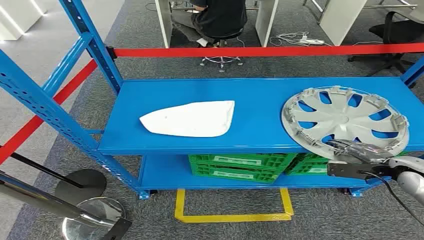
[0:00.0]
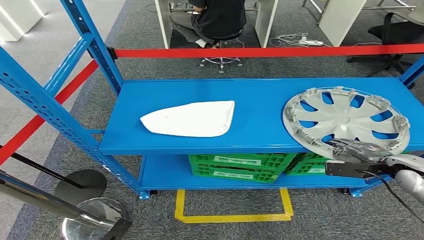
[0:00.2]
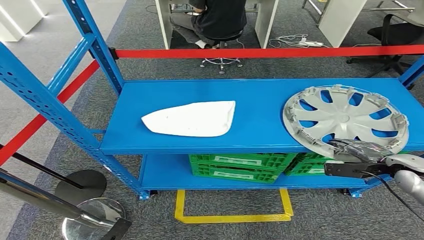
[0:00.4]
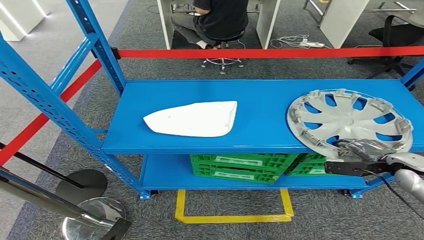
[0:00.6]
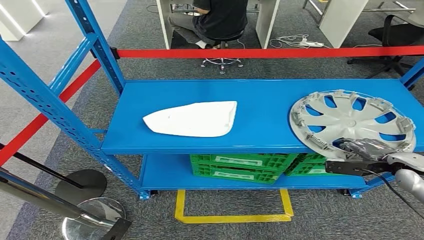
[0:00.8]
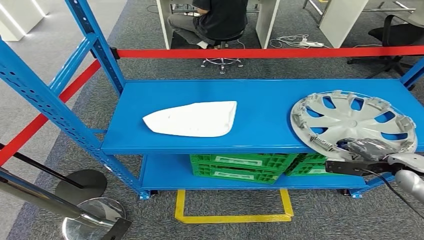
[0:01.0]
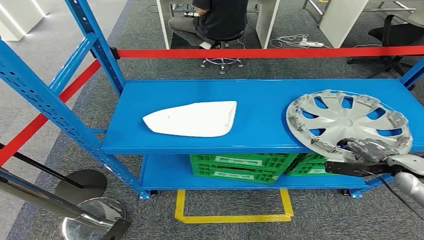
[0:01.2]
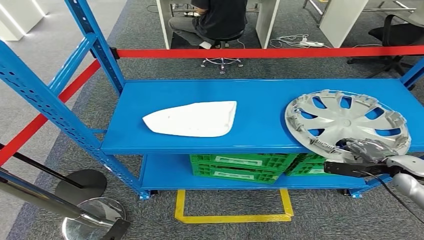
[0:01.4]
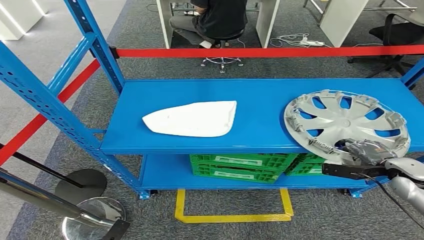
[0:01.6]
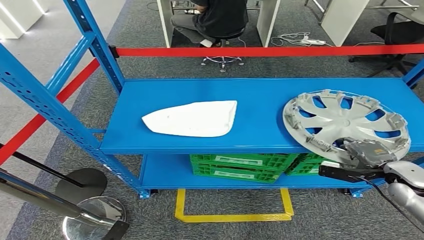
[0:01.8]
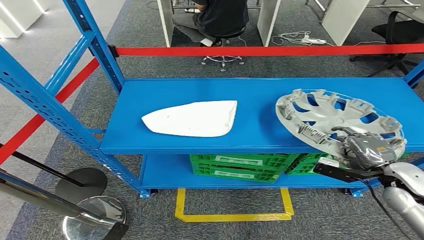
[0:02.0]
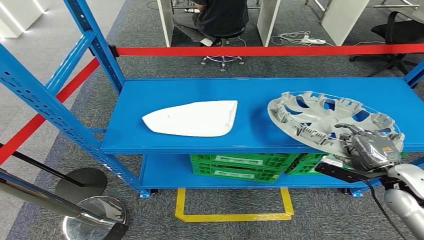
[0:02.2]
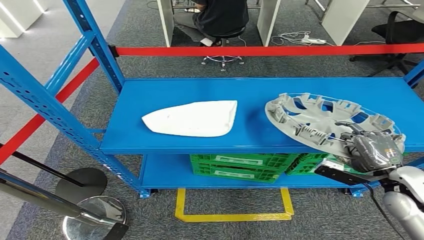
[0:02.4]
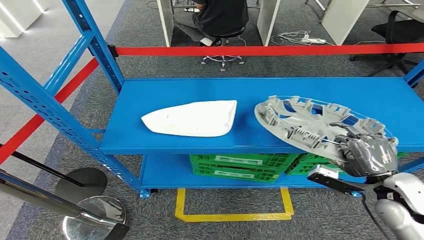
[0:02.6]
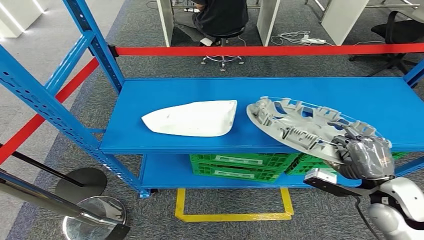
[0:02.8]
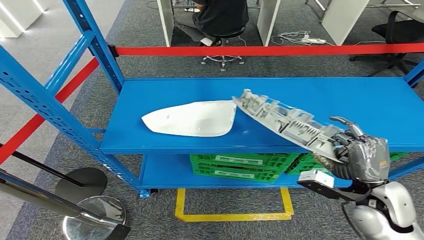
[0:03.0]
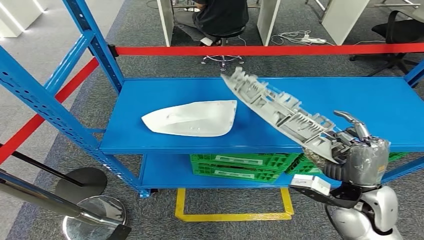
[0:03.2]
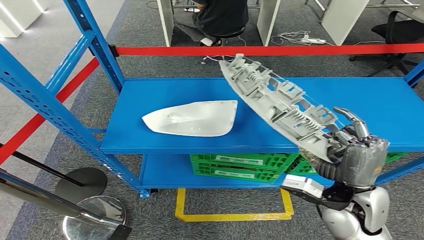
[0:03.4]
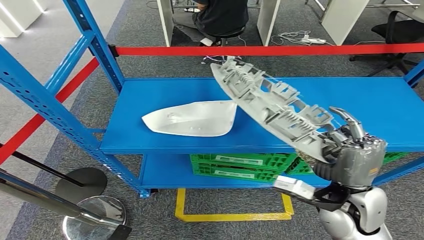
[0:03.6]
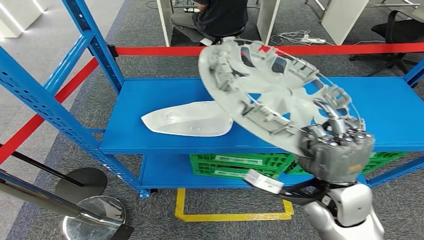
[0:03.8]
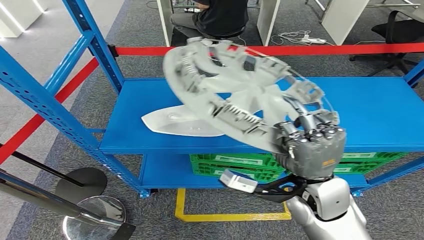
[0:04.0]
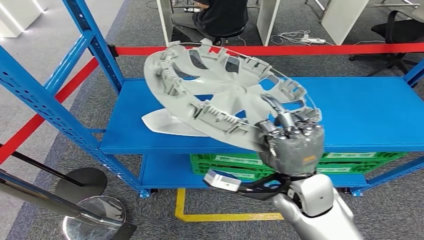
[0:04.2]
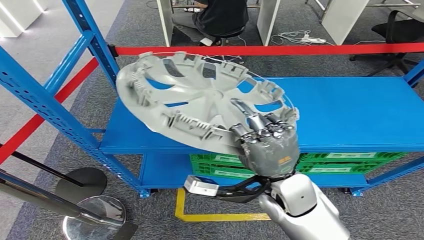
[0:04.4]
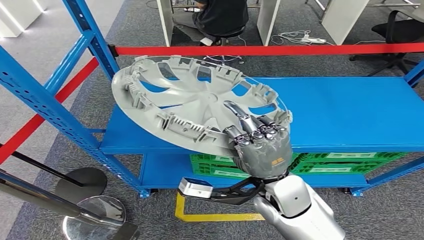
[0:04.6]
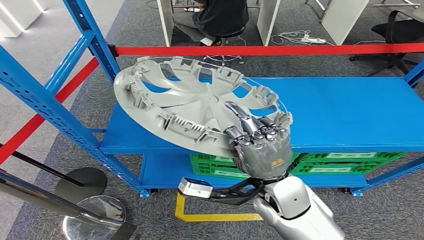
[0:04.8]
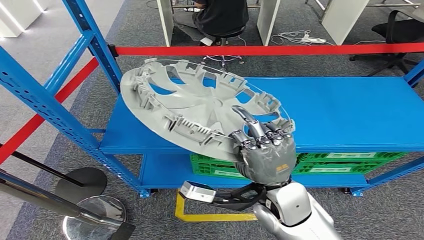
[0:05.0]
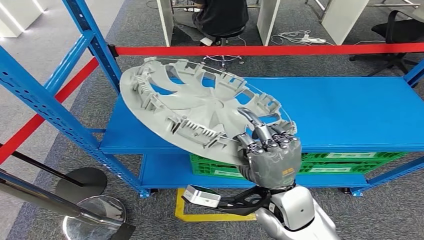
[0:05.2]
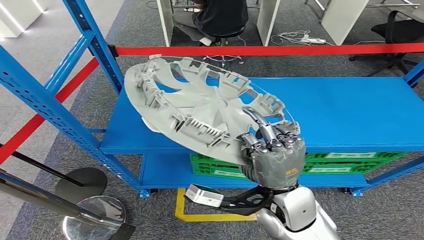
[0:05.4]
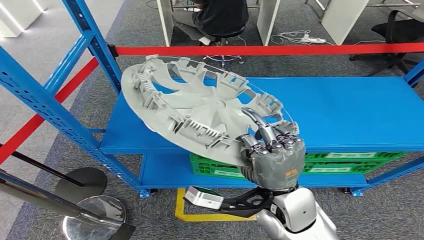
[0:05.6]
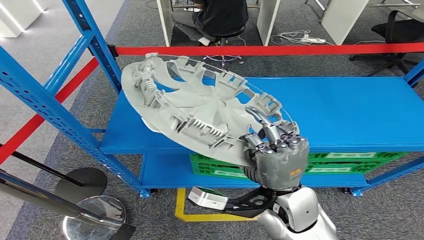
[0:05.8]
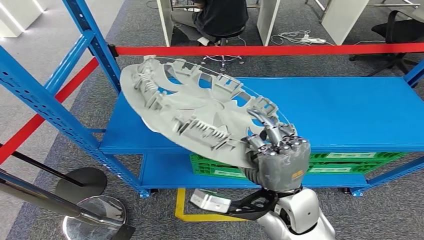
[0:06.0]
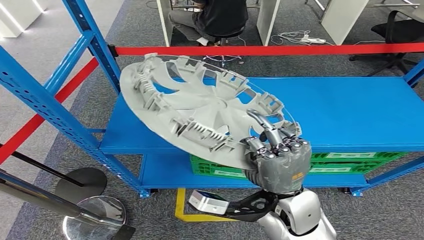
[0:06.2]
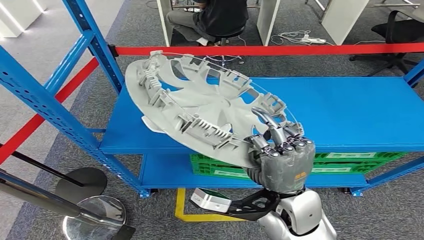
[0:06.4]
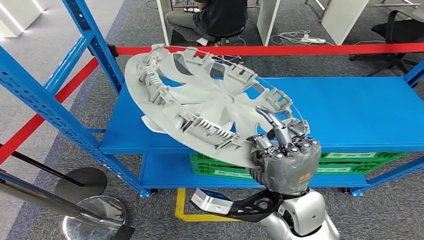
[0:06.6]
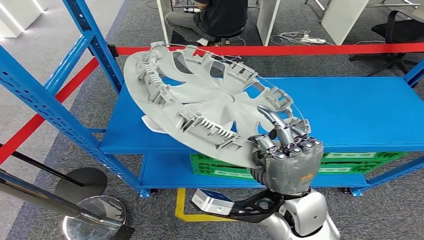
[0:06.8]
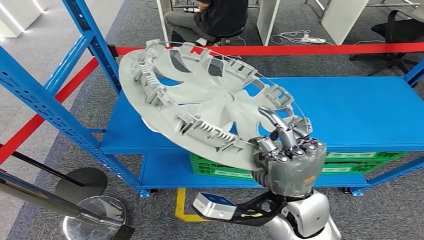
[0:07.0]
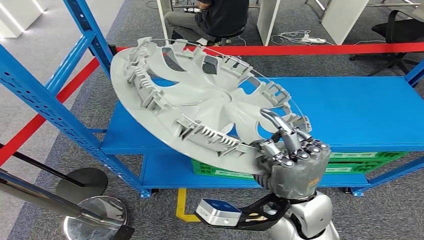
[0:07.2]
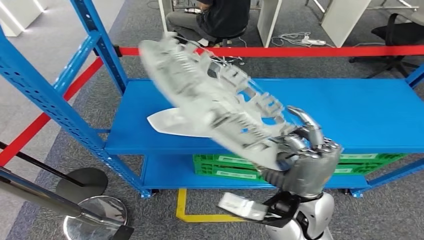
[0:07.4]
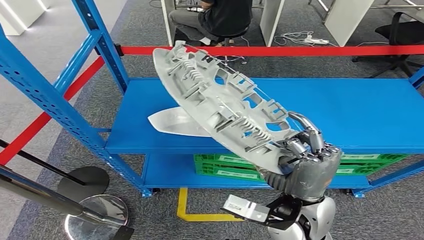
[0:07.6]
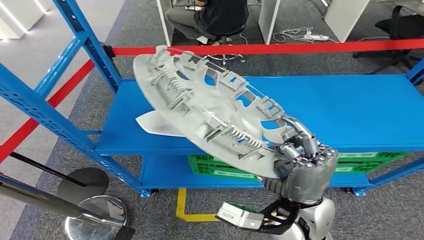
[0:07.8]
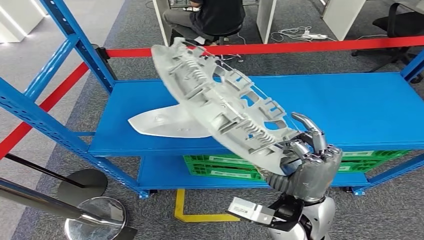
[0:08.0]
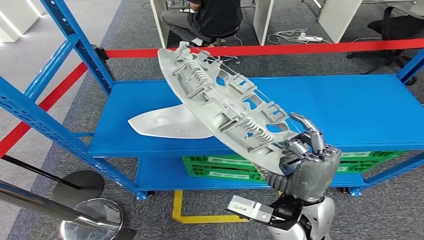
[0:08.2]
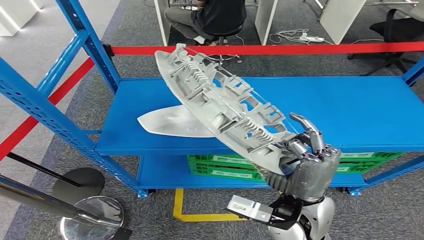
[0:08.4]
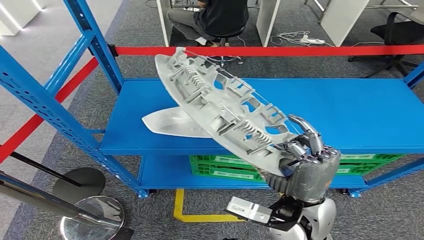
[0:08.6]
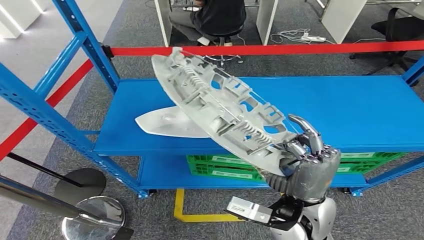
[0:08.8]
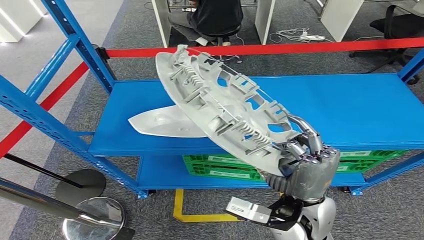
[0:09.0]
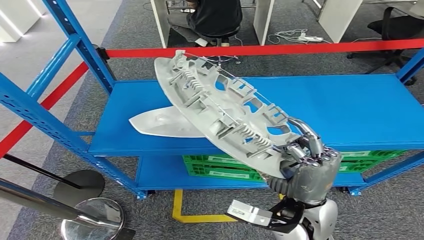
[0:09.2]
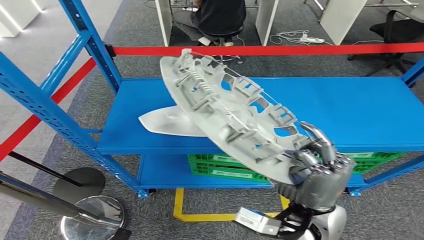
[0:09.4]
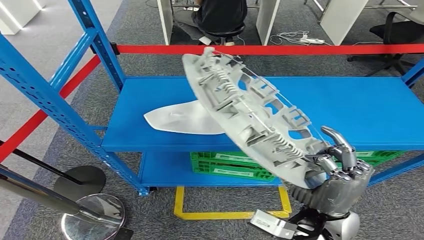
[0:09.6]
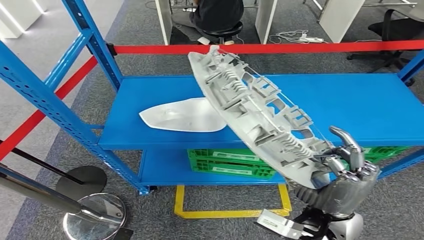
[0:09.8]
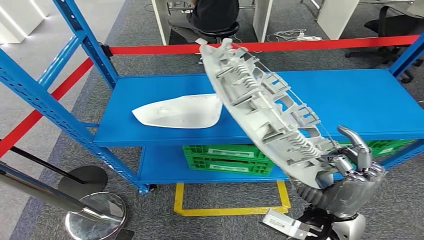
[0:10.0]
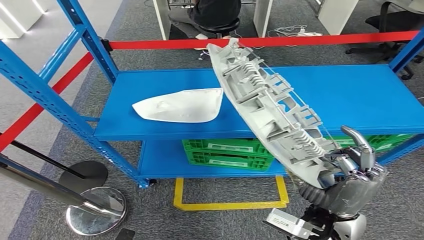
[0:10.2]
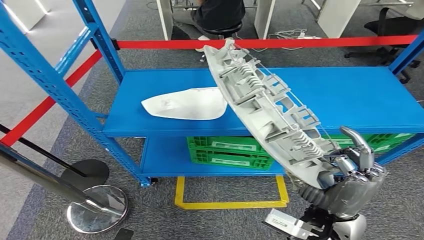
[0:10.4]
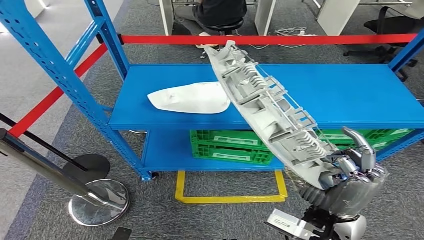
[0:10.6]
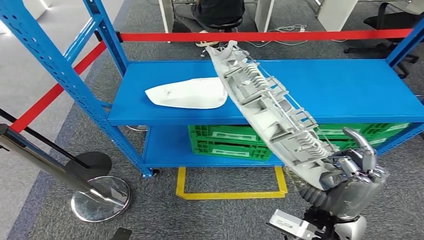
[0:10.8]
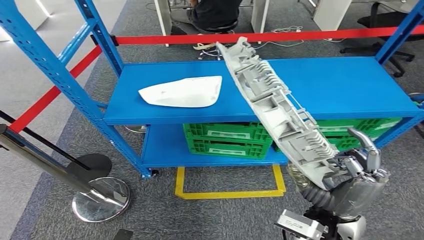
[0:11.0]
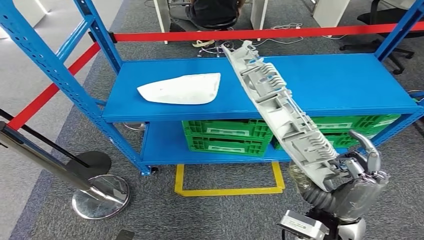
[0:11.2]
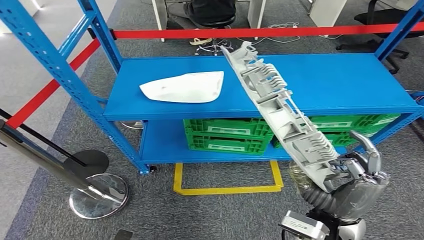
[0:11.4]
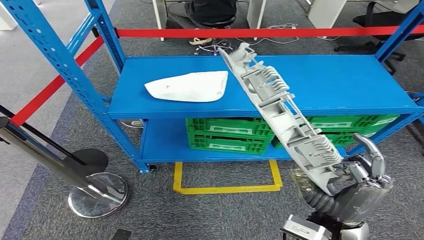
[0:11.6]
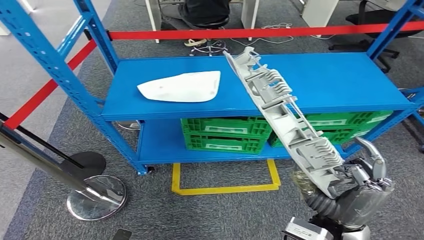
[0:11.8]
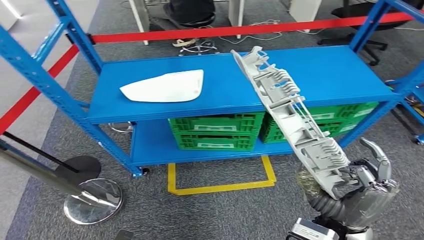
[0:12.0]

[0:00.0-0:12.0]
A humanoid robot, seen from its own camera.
Step, 0:00.0 to 0:04.0: Pick up the small component from the shelf.
0:04.4 to 0:06.0: There are only small adjustments of the hands.

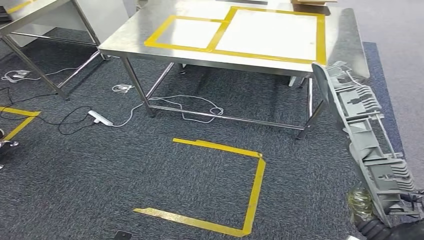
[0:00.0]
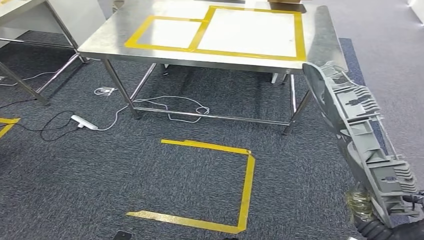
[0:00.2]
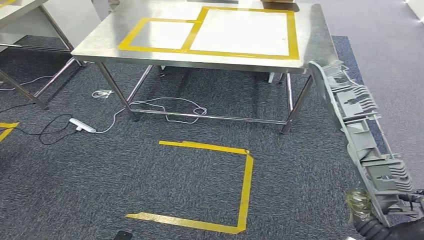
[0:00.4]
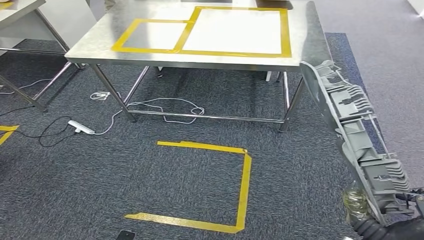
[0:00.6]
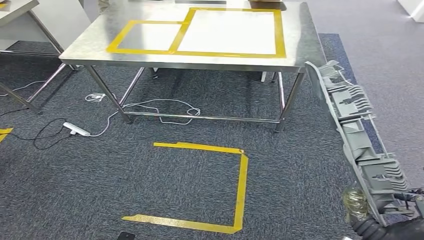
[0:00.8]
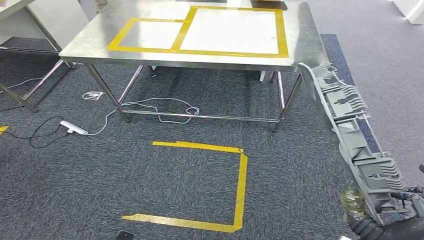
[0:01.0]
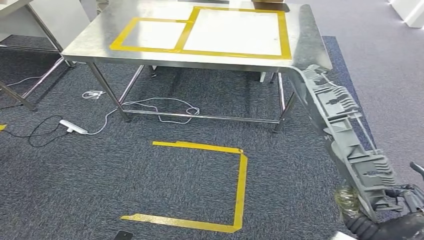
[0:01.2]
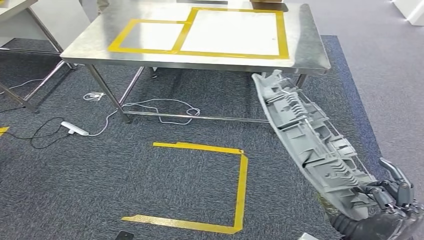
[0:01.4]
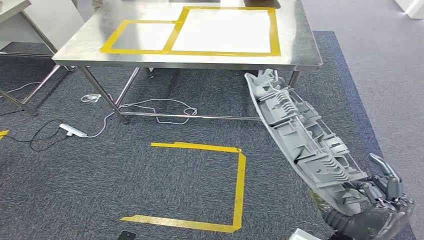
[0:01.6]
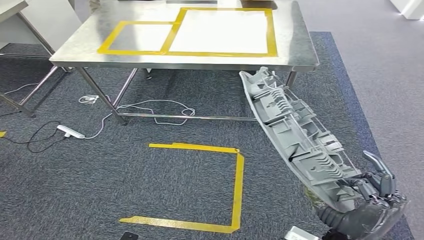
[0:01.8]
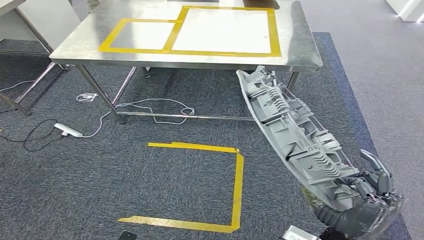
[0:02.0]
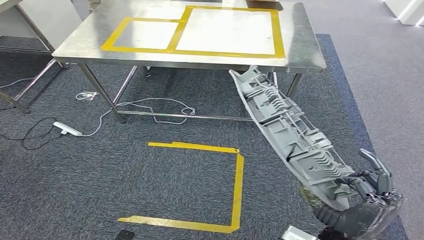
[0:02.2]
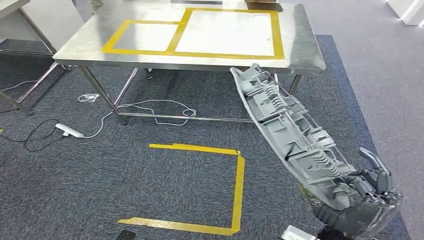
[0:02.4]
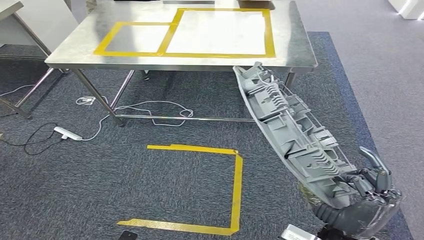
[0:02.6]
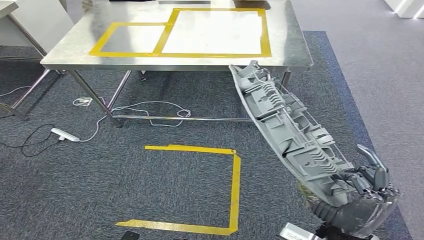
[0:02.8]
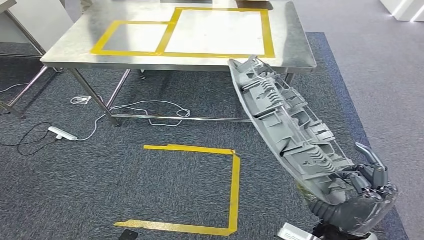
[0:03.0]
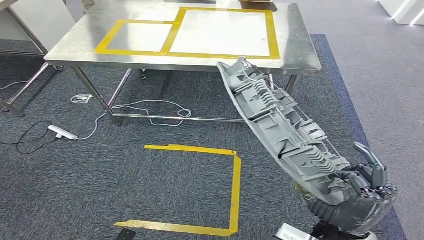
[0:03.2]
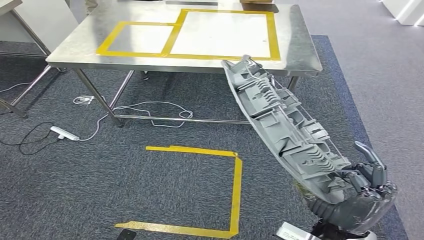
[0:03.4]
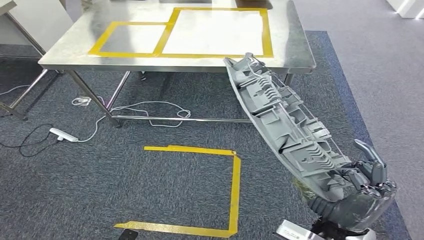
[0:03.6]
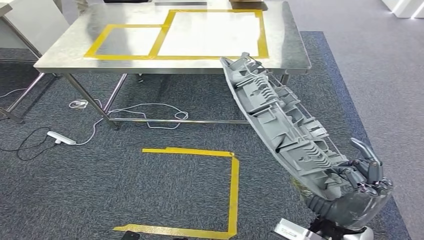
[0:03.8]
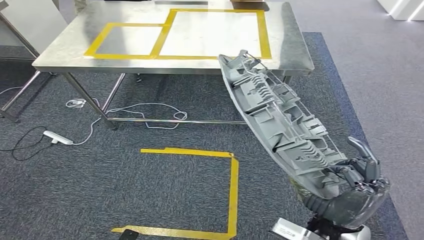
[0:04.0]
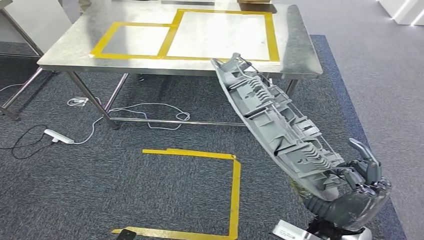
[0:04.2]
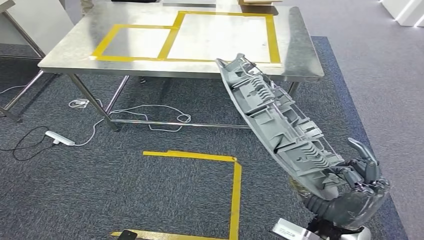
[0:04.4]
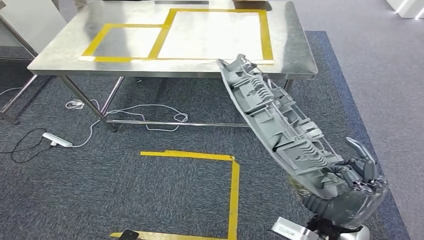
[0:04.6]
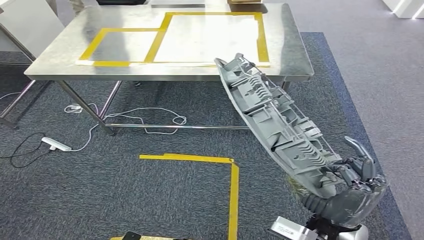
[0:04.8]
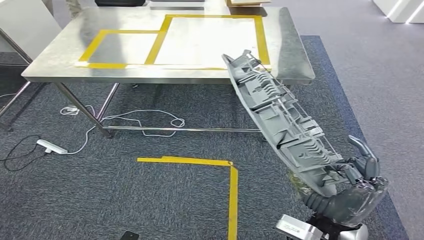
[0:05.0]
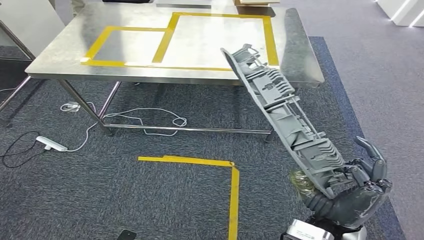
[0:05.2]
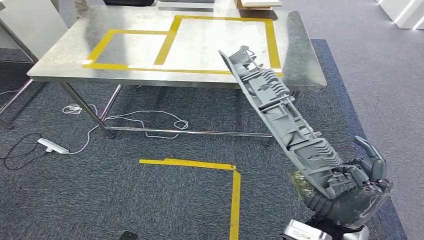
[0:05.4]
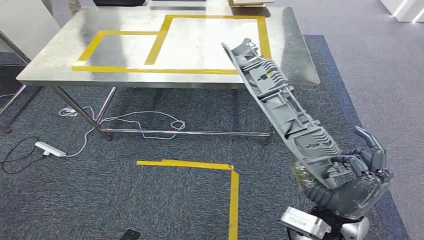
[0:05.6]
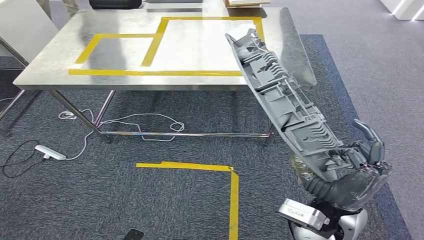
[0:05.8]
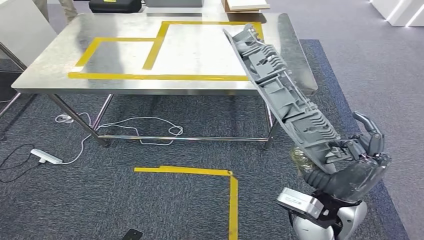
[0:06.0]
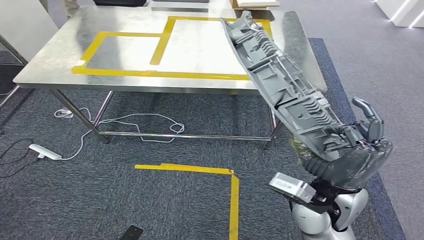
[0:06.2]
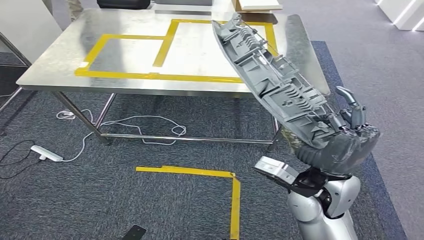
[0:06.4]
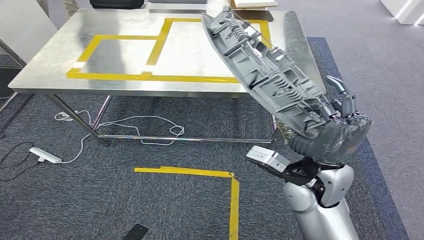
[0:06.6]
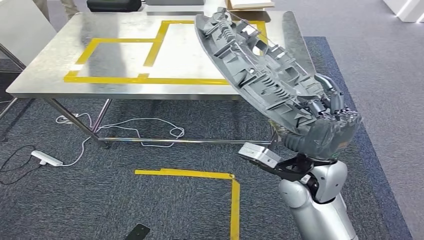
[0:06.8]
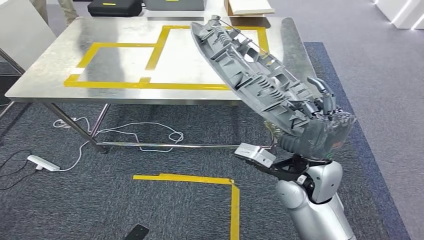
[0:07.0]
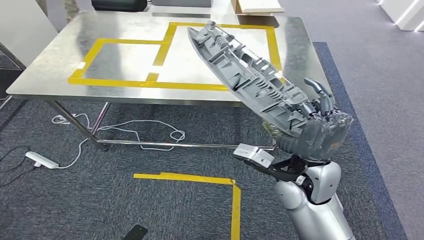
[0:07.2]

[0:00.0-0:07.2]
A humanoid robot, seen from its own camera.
Step, 0:00.0 to 0:06.0: Bring the small component to the front of the workbench.
